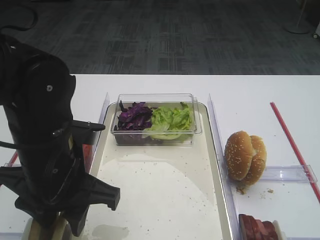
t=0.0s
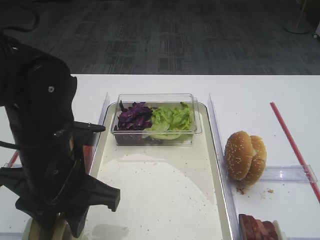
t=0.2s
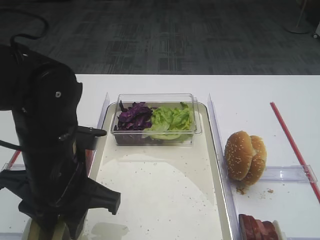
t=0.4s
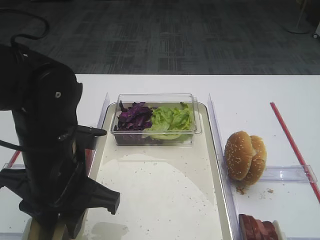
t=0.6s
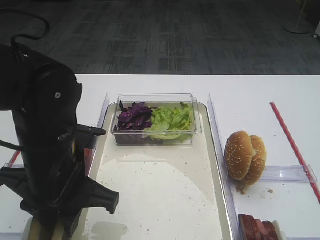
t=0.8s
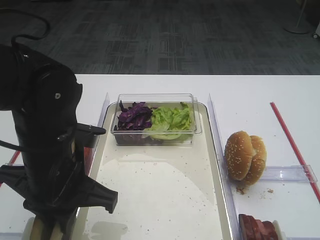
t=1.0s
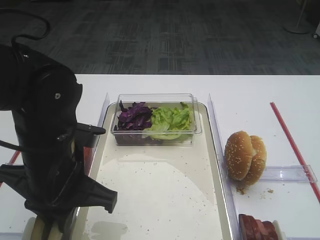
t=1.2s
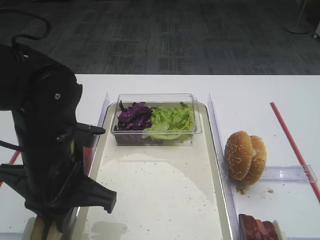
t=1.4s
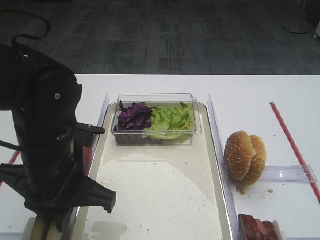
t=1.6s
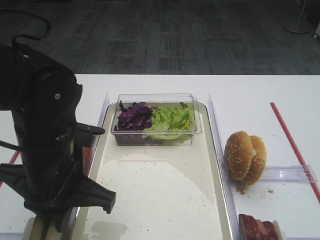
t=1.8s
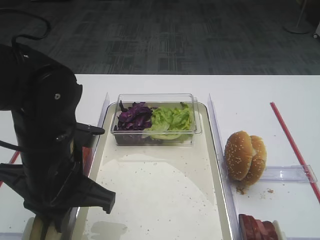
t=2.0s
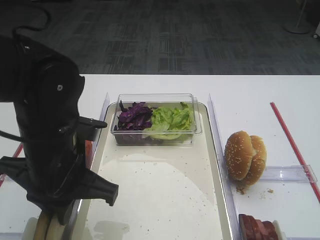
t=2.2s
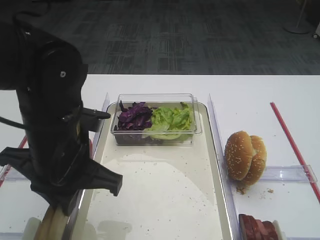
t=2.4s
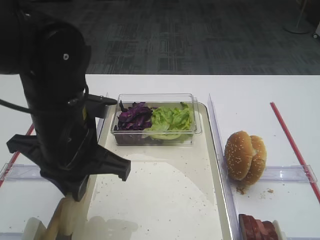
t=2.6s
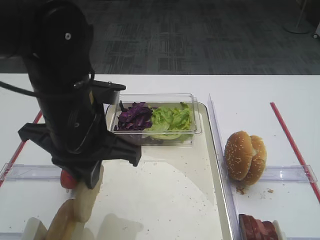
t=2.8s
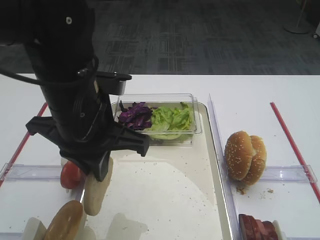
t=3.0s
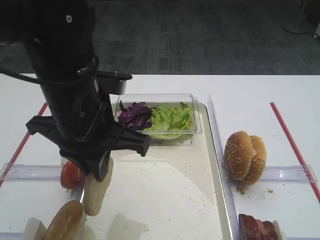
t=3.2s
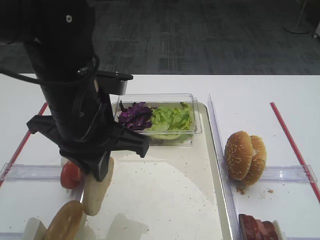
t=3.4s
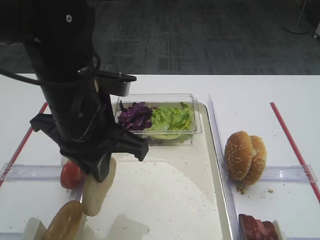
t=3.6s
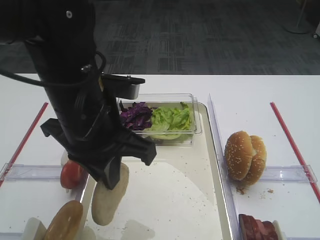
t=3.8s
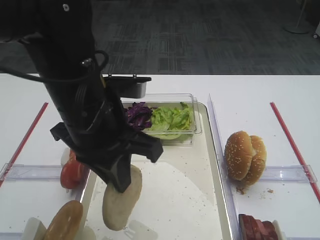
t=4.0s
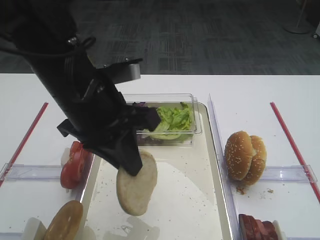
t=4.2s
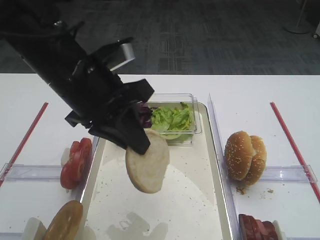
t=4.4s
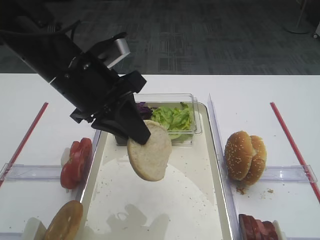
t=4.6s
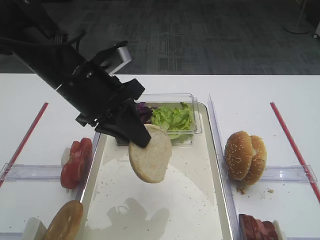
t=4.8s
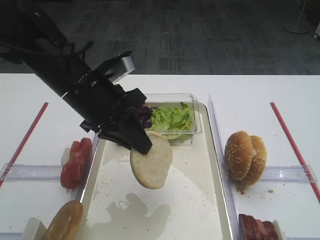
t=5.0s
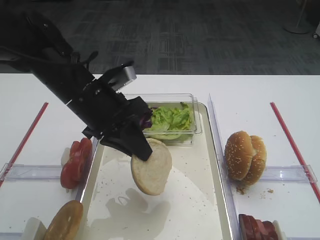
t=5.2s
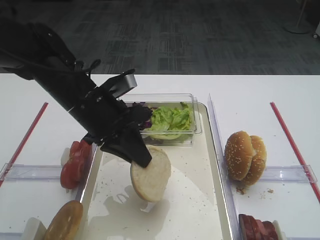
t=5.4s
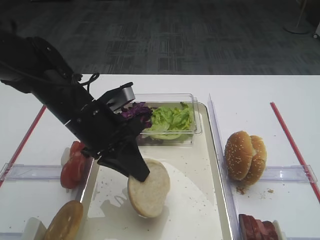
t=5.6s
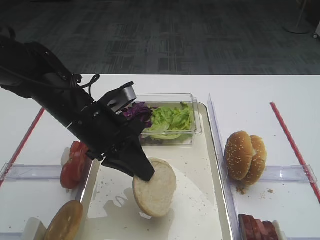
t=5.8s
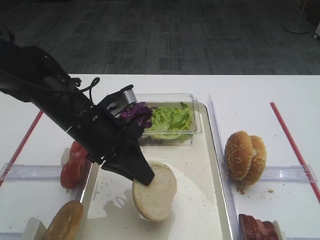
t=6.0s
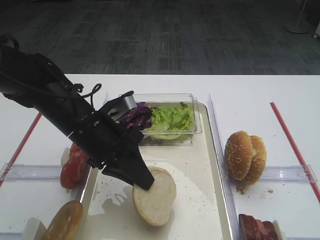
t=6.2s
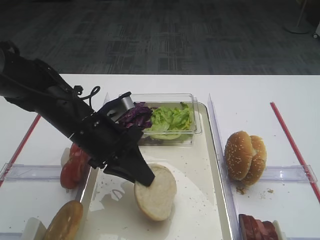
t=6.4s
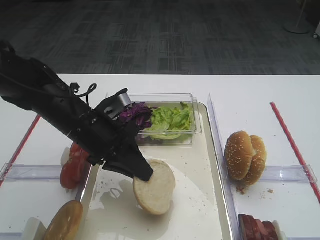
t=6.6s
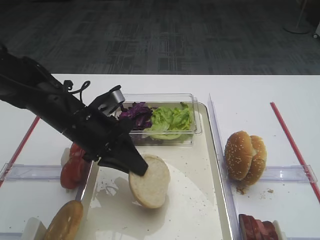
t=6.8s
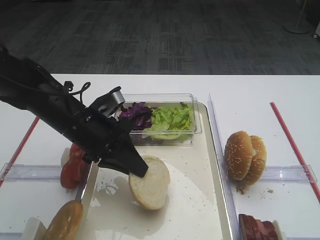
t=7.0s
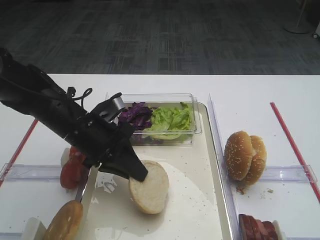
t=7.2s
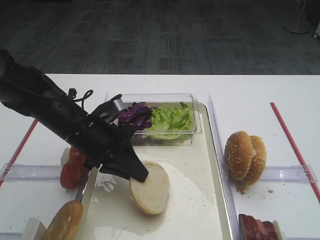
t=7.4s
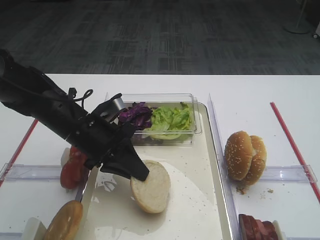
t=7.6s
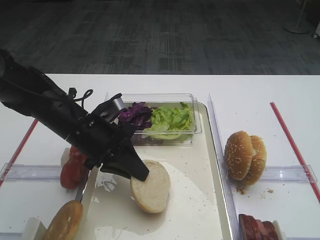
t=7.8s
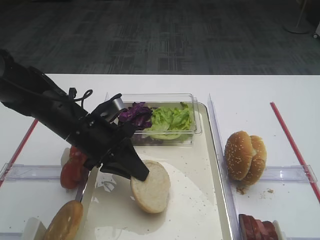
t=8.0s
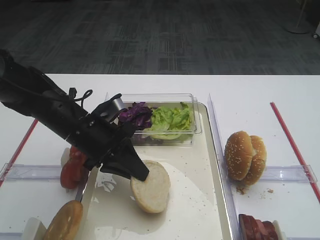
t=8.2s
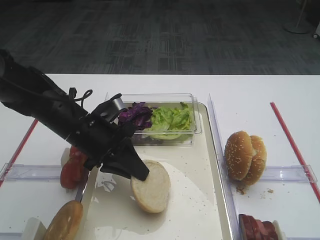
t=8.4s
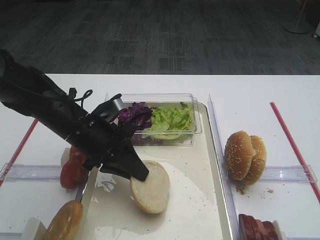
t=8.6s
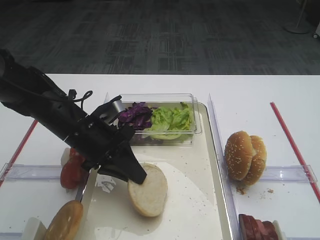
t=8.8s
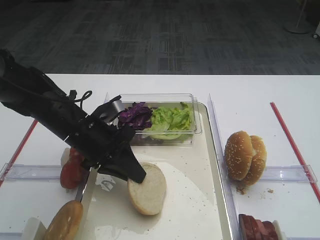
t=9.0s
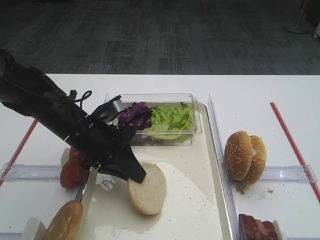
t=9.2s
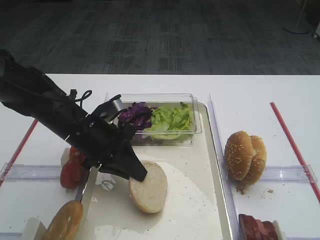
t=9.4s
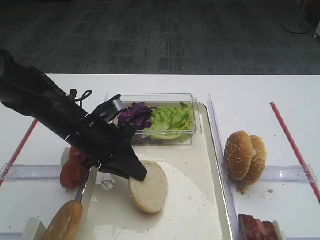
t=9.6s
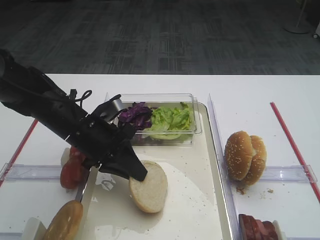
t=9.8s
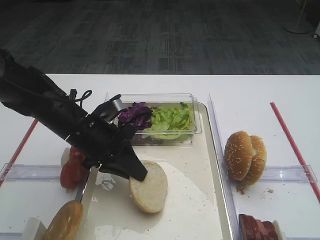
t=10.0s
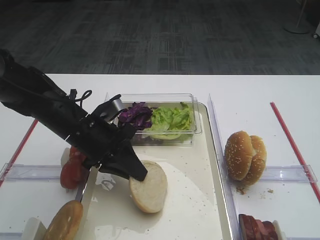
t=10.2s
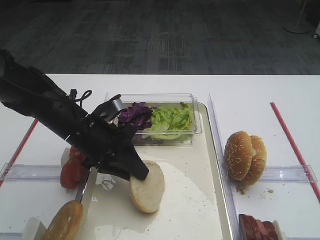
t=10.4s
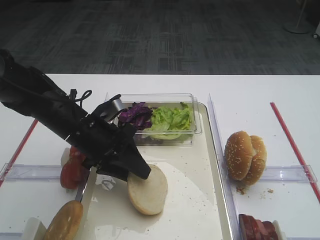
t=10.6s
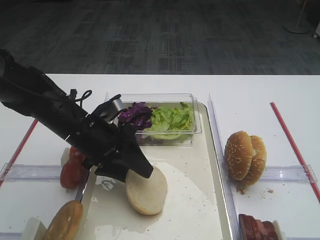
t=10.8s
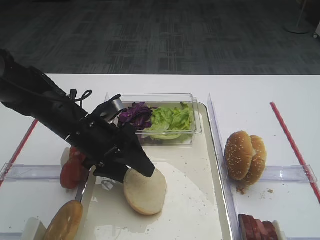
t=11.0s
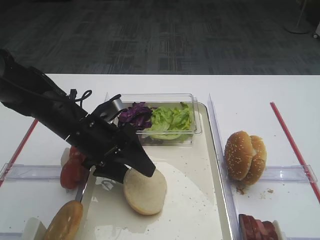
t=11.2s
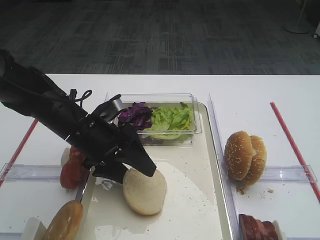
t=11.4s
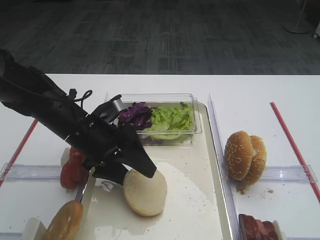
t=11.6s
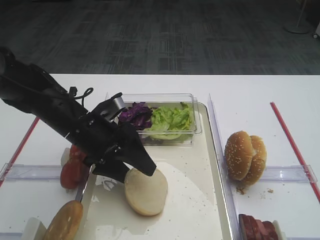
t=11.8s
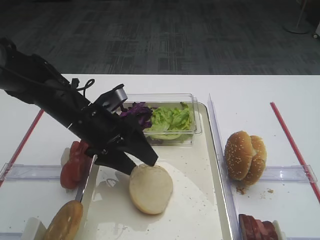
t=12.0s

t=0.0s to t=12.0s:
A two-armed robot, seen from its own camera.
Step, t=0.0s to t=3.4s: Pick up the bread slice with the left gripper.
t=0.0s to t=1.6s: The left gripper closes.
t=1.6s to t=3.0s: The left gripper moves upward, approximately 5 cm.
t=4.4s to t=6.0s: The left gripper is displaced downward by approximately 10 cm.
t=6.0s to t=7.6s: There are only small adjustments of the grippers.
t=7.6s to t=10.4s: Neither gripper changes place.
t=10.4s to t=12.0s: The left gripper opens up.

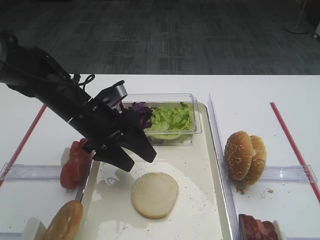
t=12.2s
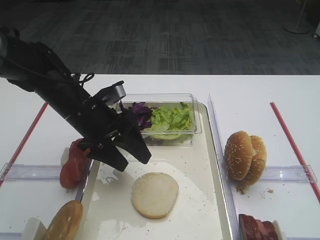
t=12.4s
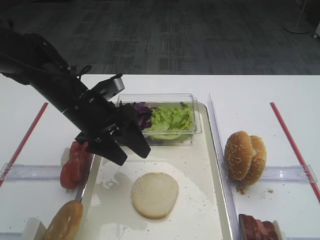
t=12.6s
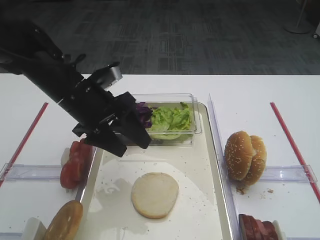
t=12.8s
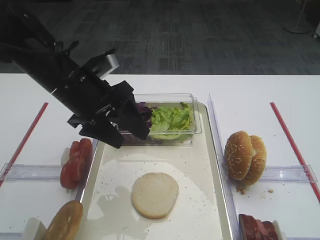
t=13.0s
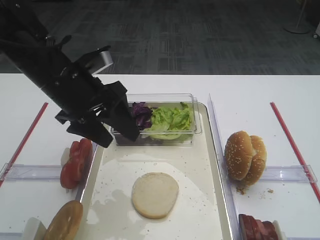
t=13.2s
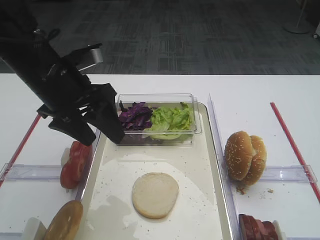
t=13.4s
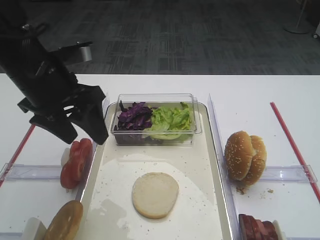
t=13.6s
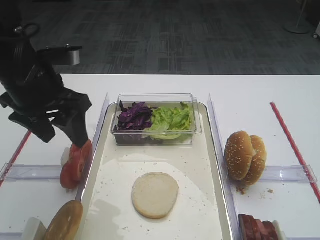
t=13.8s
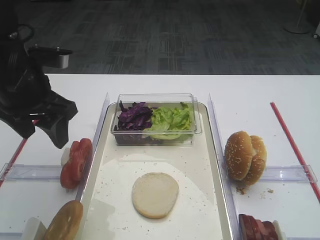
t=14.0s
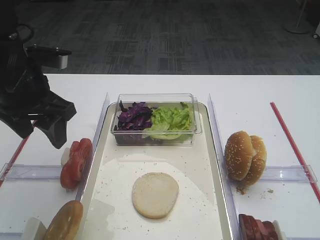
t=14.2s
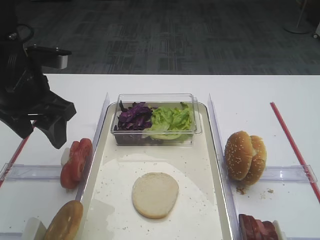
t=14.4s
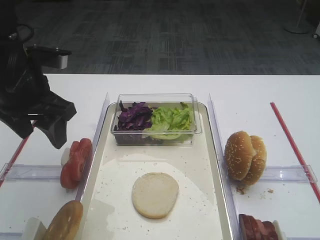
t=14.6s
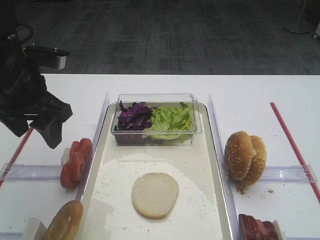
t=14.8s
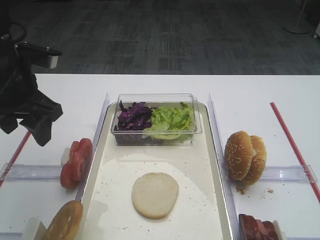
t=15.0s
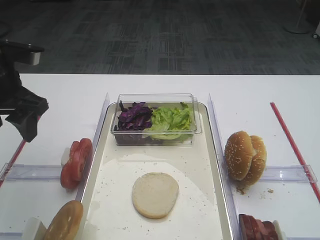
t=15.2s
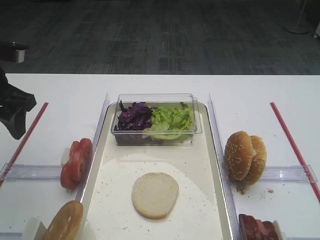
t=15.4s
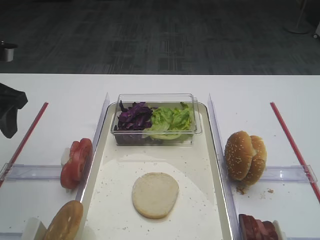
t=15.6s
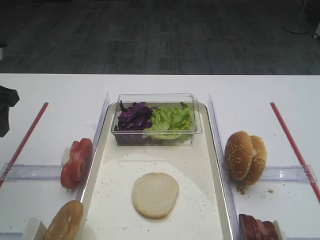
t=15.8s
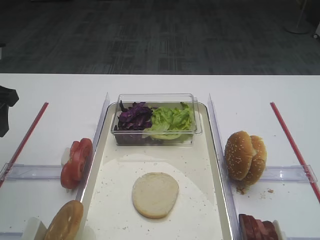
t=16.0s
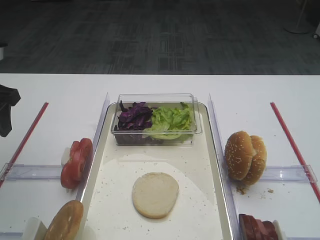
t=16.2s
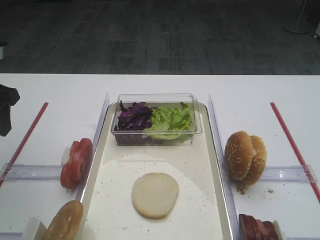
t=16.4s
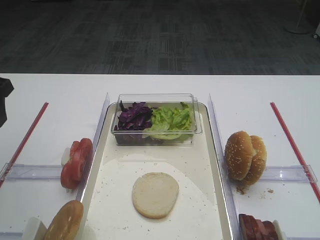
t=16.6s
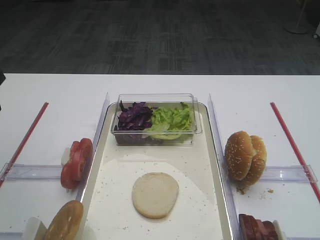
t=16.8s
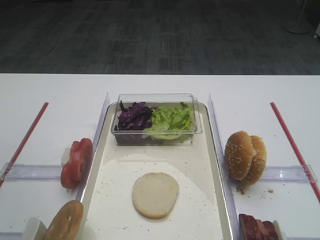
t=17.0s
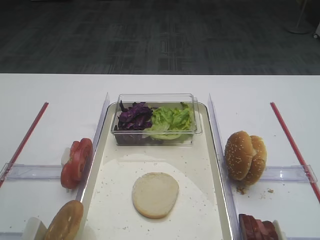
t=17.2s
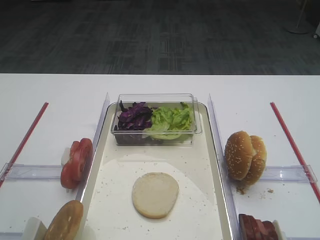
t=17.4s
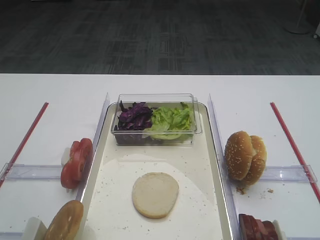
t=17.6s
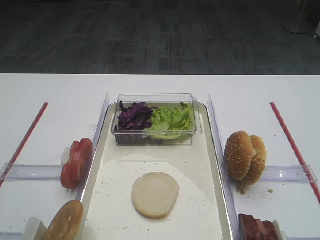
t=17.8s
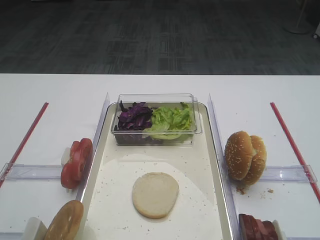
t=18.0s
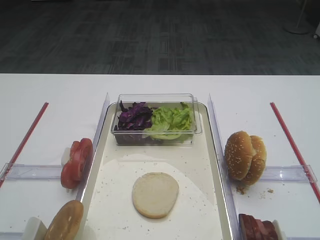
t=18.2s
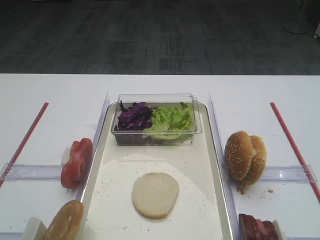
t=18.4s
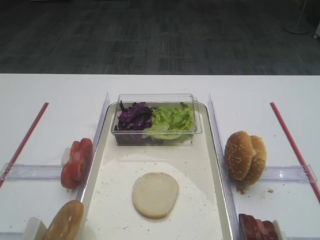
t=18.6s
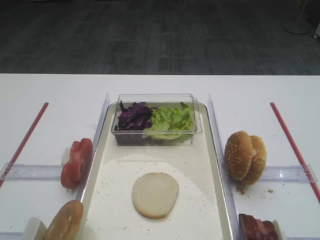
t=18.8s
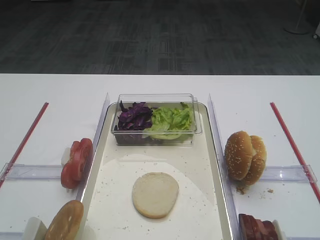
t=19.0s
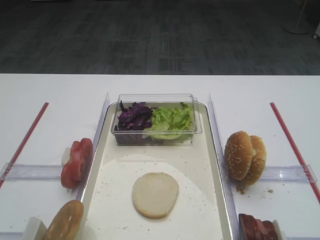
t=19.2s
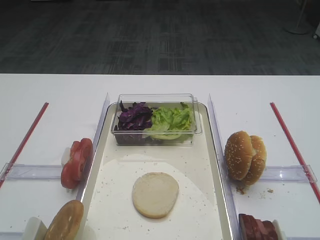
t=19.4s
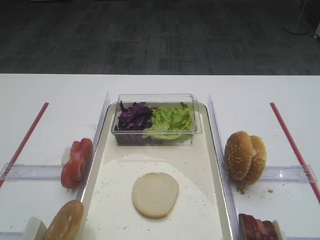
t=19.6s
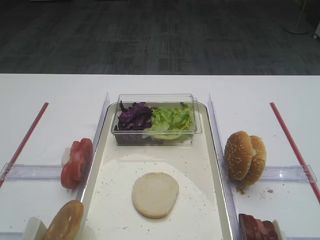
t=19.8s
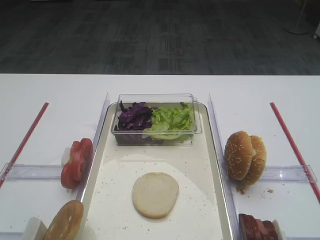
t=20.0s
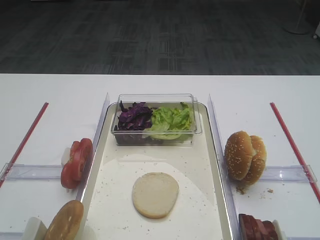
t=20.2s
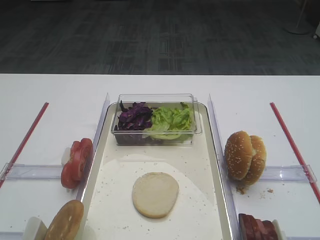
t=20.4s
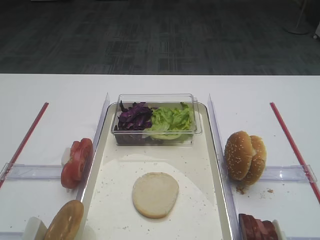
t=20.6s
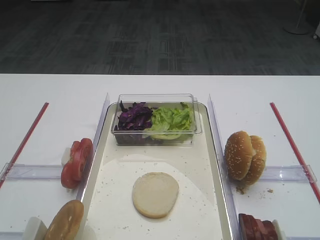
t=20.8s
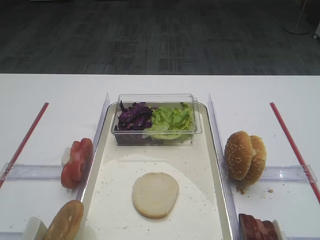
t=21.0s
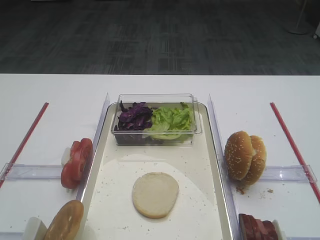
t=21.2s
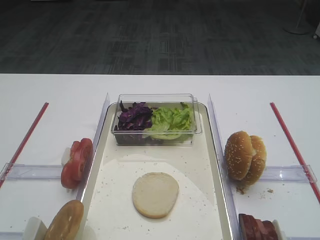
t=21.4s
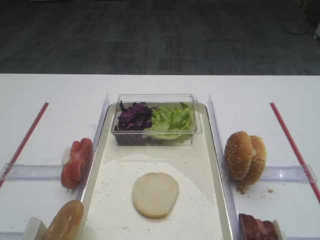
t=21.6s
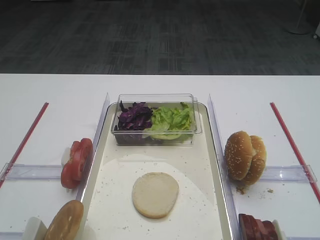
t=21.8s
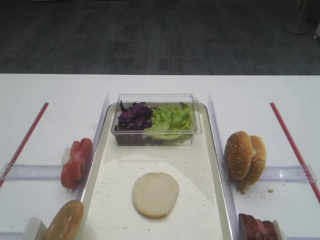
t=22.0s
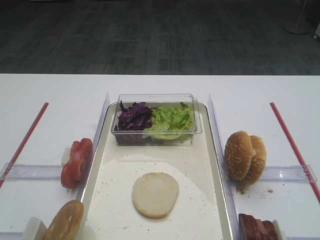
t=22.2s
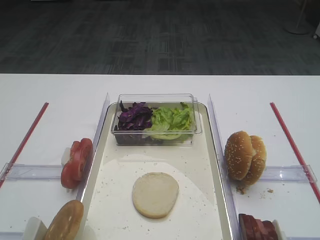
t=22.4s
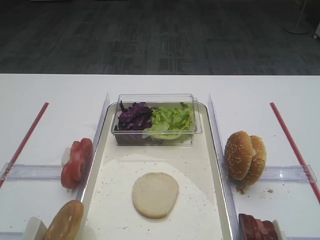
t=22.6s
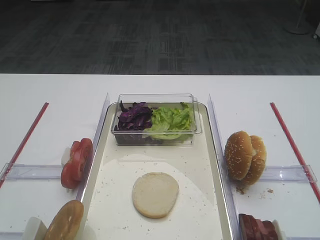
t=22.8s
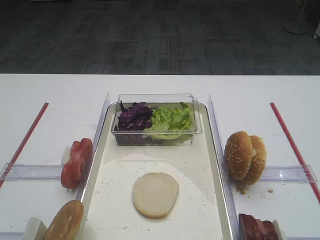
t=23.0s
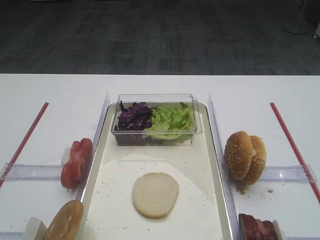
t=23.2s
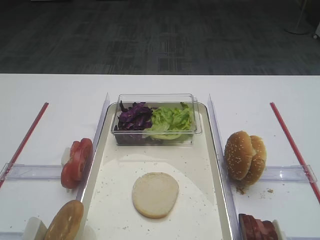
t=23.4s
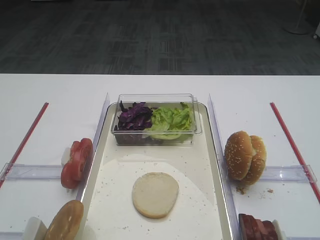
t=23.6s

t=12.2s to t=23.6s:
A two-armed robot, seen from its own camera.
t=12.2s to t=13.6s: The left gripper heads upward, covering about 10 cm.
t=13.6s to t=15.0s: The left gripper moves to the left, roughly 5 cm.
t=15.0s to t=16.4s: The left gripper travels to the left by about 5 cm.
t=16.4s to t=17.8s: The left gripper moves backward and upward, approximately 20 cm.
t=19.4s to t=23.6s: Both grippers stay put.
